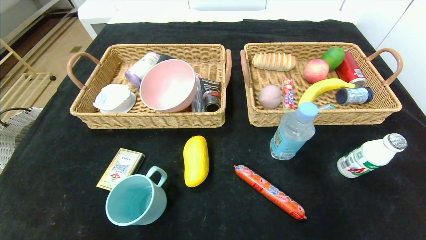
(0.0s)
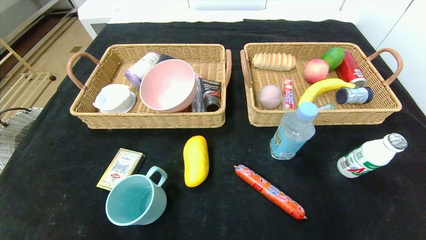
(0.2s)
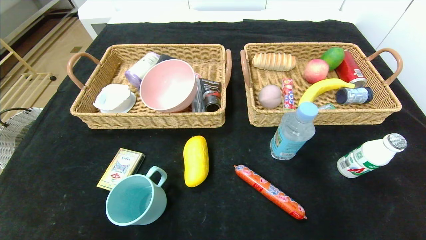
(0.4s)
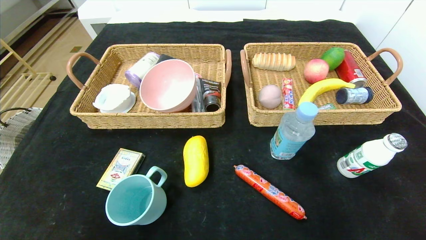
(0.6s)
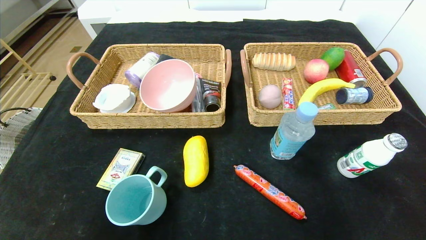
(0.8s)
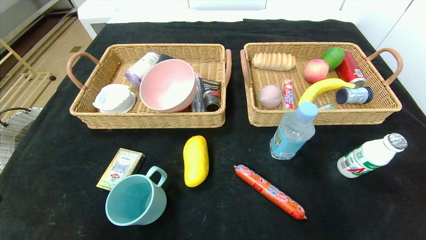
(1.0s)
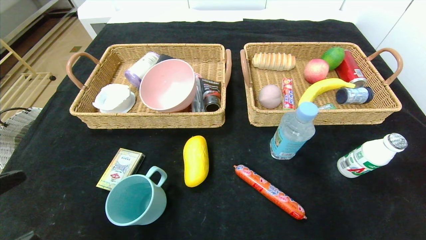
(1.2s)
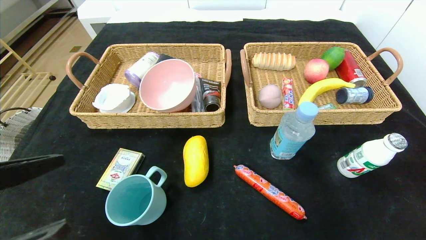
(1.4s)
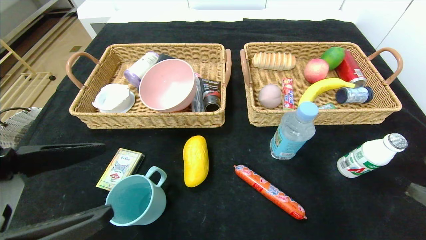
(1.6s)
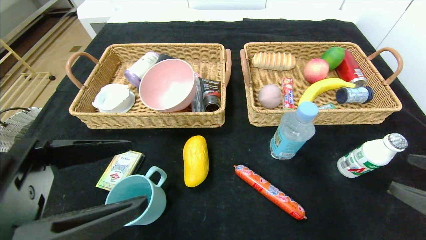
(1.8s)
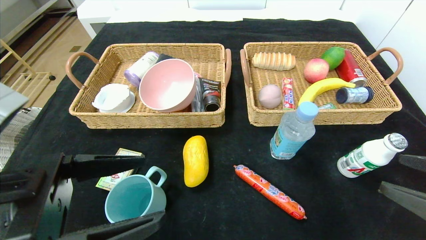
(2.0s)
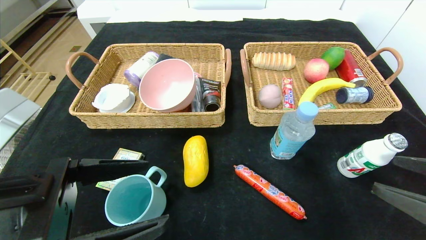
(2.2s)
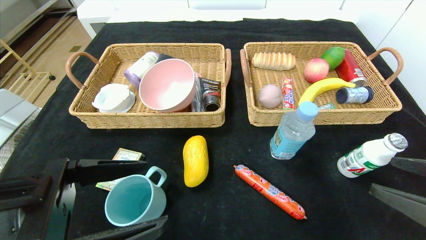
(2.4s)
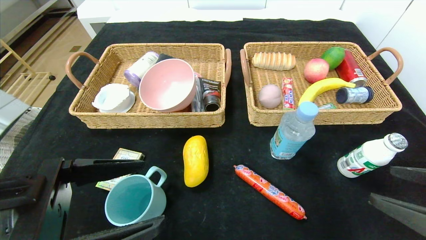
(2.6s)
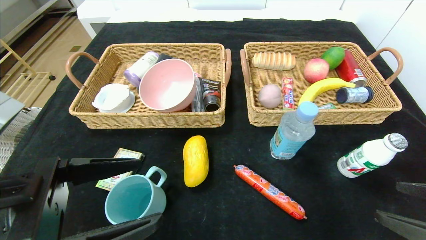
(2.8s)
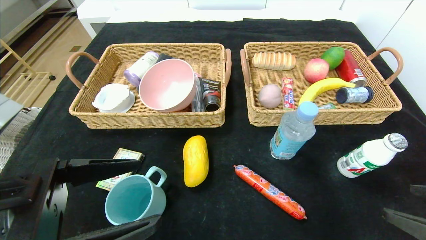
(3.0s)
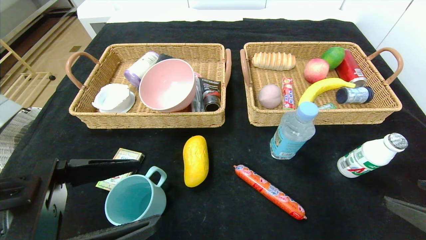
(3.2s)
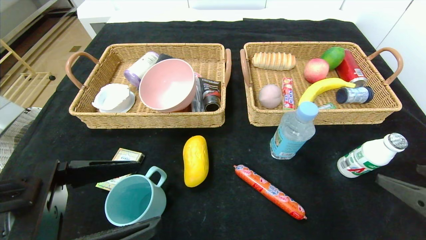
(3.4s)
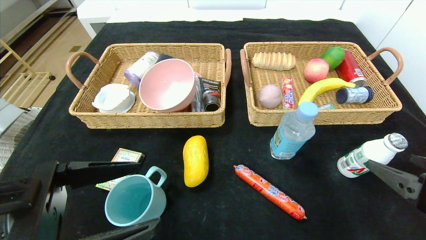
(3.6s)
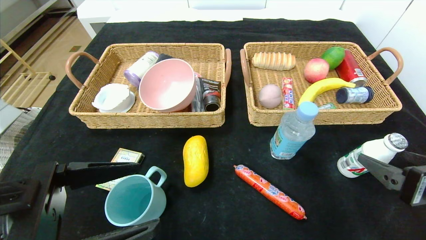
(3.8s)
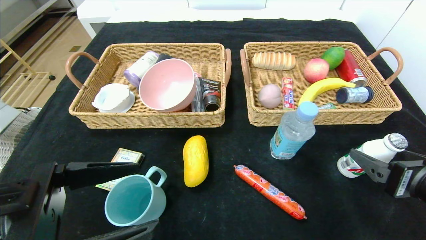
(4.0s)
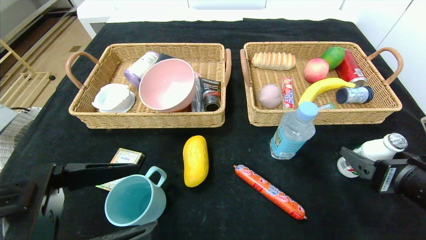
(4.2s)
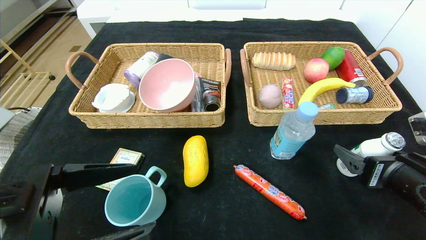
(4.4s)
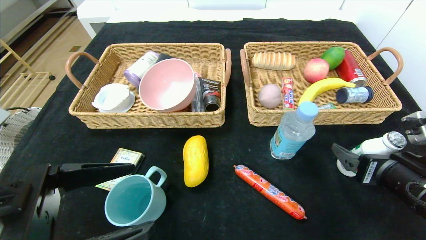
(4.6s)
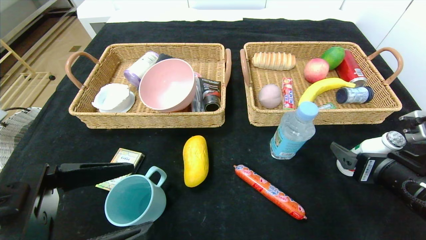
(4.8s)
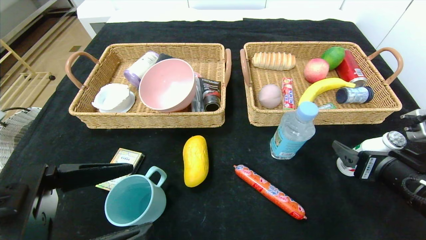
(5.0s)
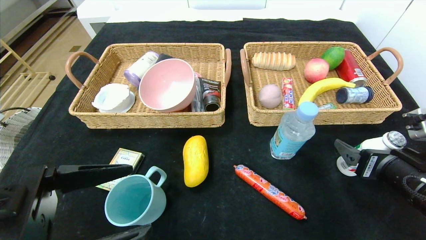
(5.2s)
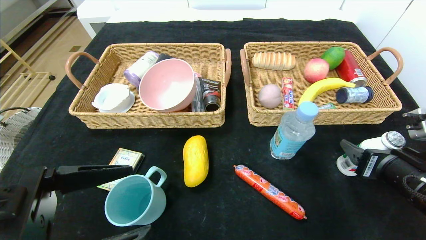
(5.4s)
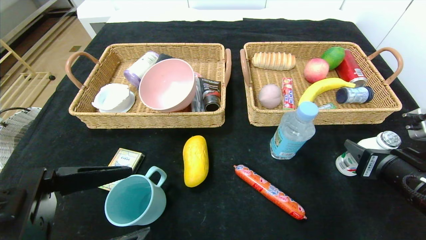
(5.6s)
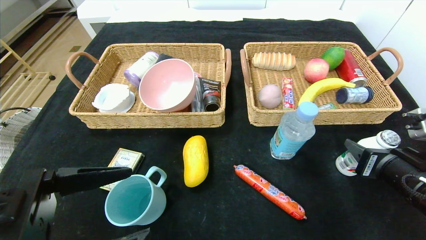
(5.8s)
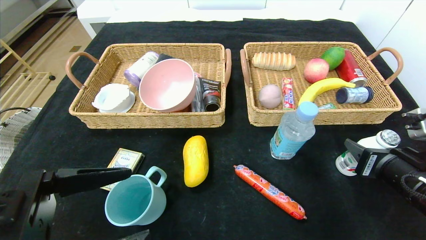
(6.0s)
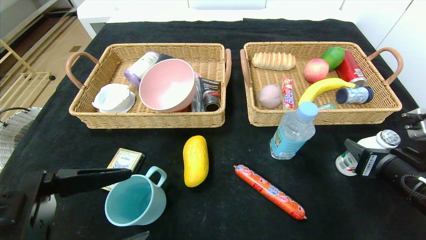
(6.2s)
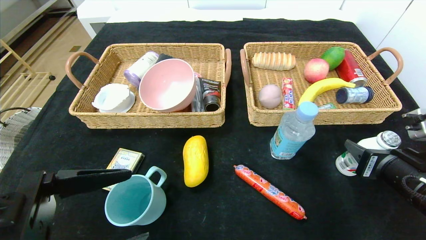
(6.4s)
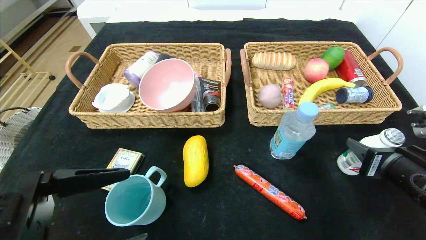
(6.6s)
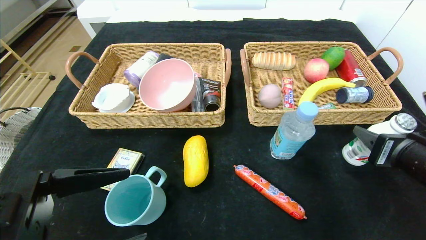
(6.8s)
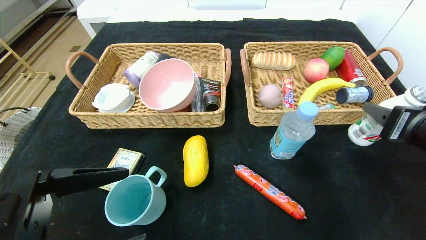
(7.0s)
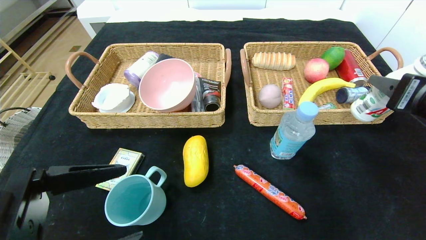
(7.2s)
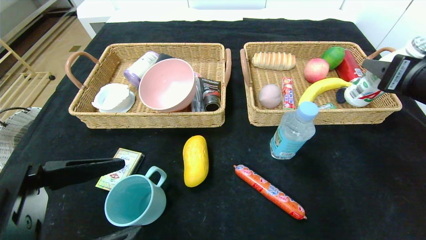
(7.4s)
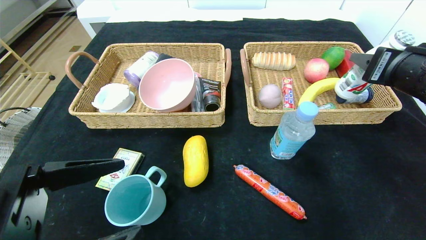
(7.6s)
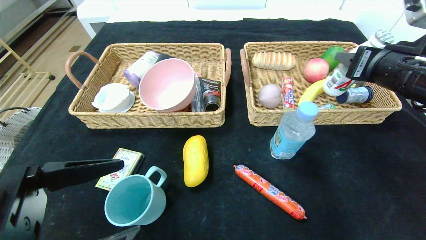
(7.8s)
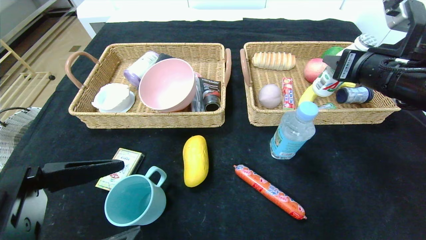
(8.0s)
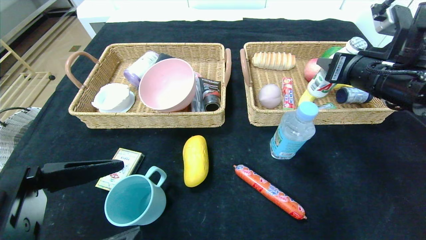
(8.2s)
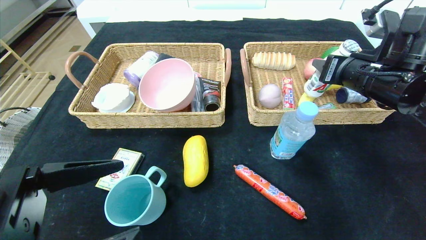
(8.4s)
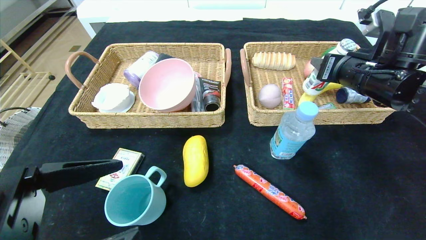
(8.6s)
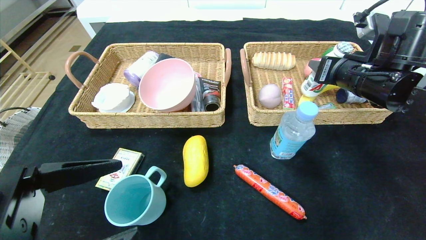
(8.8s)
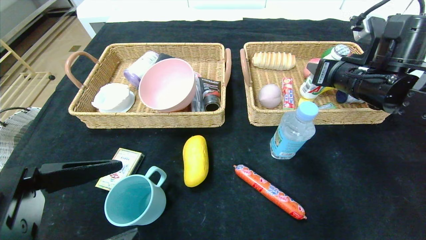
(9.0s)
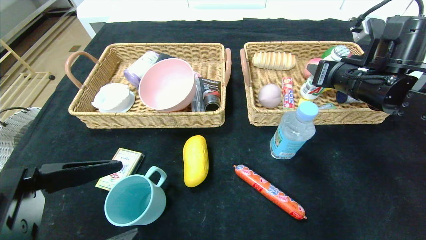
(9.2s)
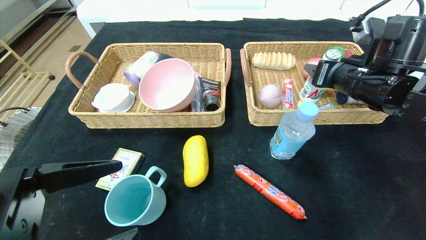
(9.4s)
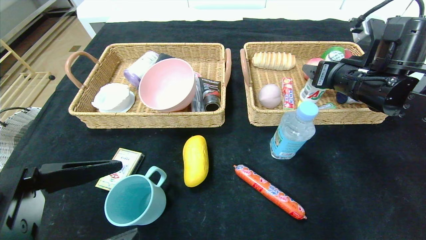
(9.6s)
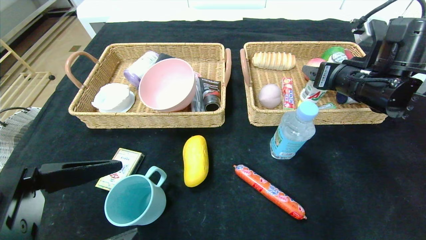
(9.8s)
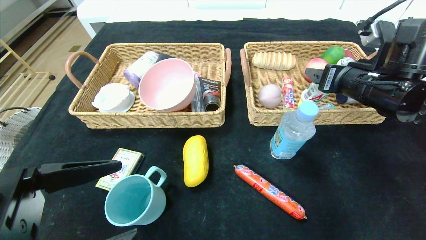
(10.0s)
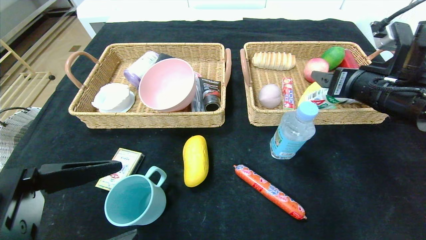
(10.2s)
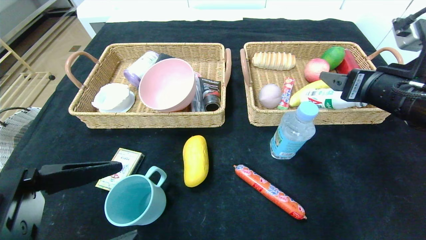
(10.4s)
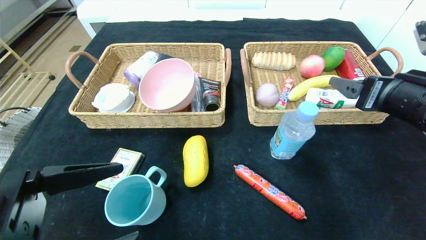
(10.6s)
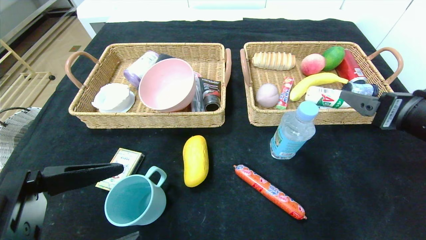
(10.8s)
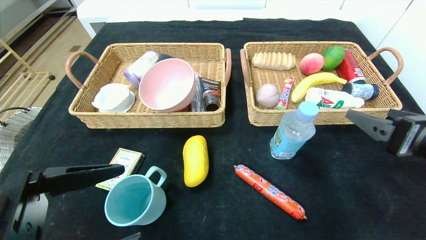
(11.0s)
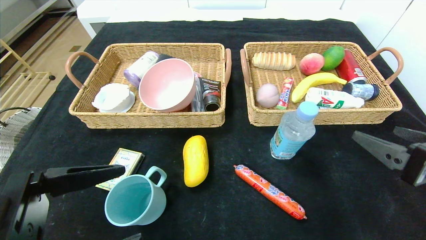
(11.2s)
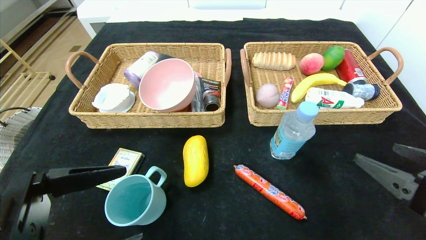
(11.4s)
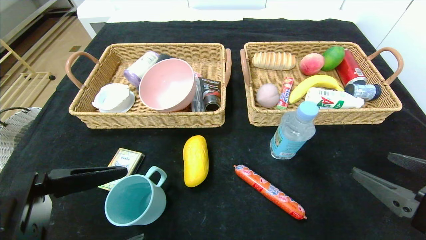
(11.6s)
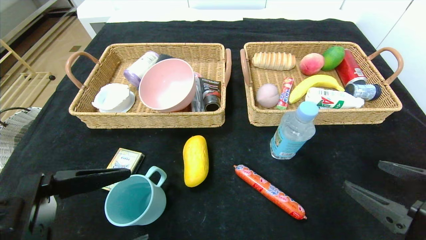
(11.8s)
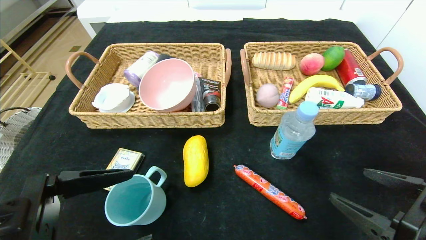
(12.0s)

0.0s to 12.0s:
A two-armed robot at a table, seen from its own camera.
Step, 0.0s to 10.0s: Grasp the ad milk and put it in the right basket.
0.0s to 1.6s: Both grippers travel together forward and upward, about 10 cm.
1.6s to 3.0s: There are only small adjustments of the grippers.
3.0s to 4.4s: The right gripper shifts about 10 cm forward.
4.4s to 6.0s: The right gripper closes up.
6.0s to 7.6s: The right gripper is displaced upward by about 15 cm.
7.6s to 9.0s: The right gripper is displaced forward by some 10 cm.
9.0s to 10.4s: The right gripper shifts approximately 5 cm backward, and opens its fingers.
10.4s to 12.0s: The right gripper heads backward and downward, covering about 15 cm.

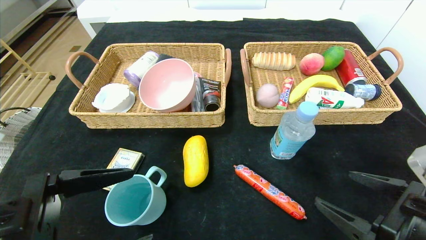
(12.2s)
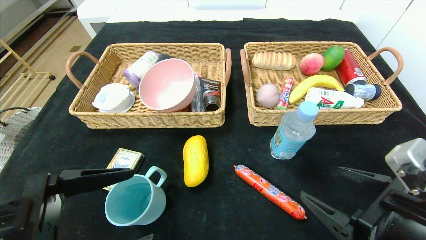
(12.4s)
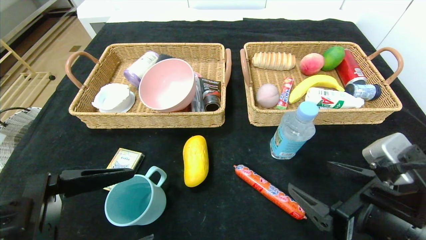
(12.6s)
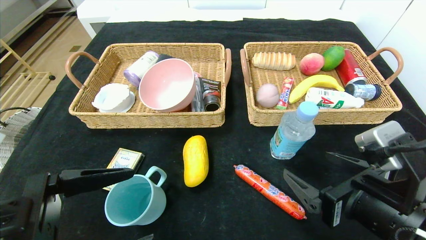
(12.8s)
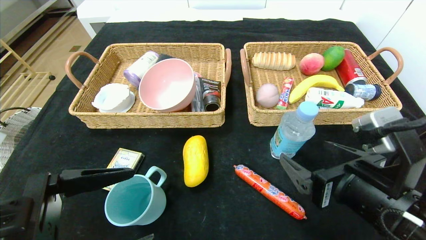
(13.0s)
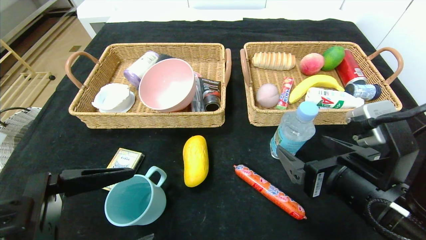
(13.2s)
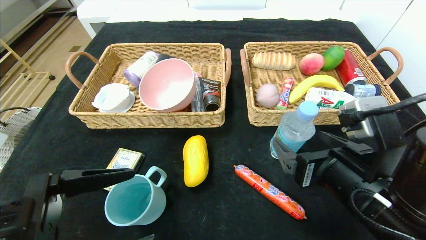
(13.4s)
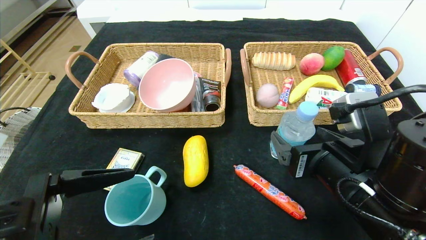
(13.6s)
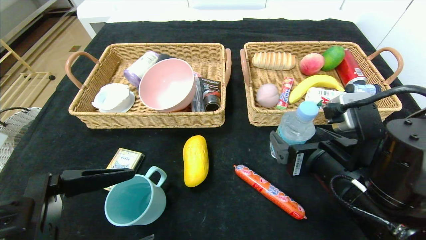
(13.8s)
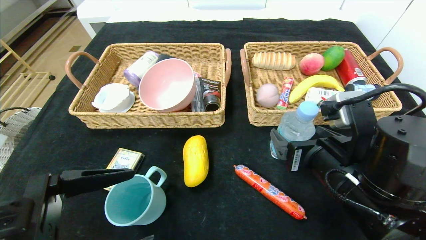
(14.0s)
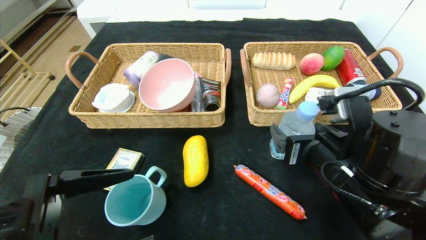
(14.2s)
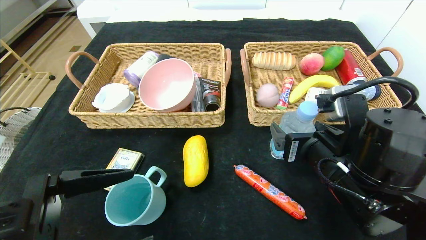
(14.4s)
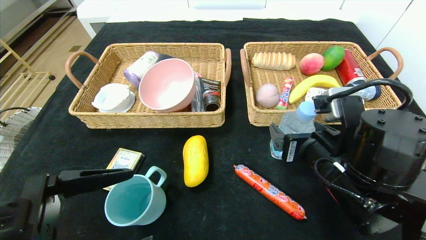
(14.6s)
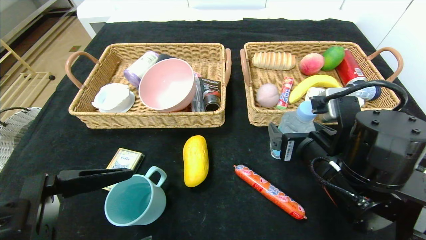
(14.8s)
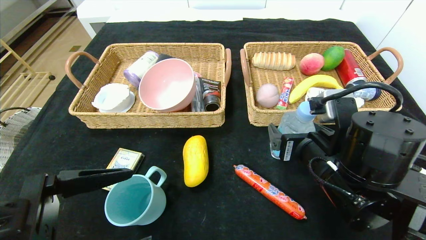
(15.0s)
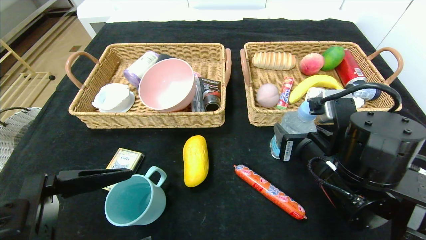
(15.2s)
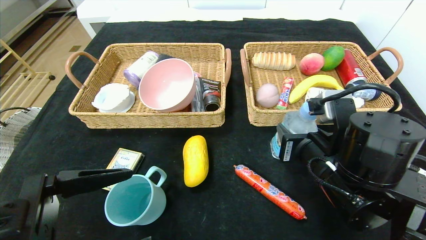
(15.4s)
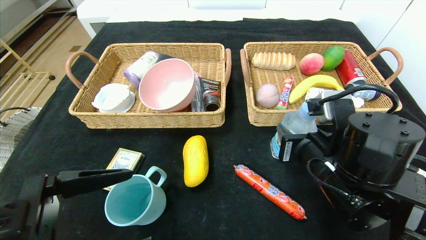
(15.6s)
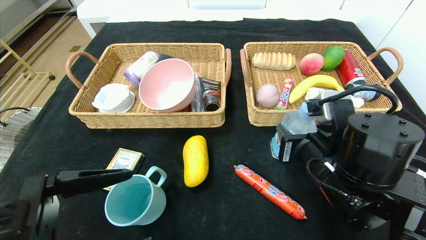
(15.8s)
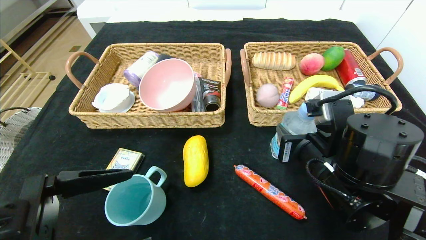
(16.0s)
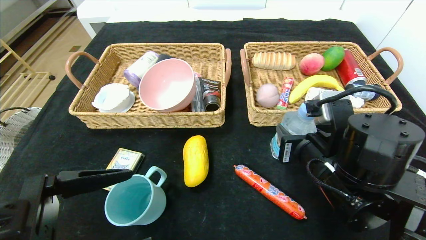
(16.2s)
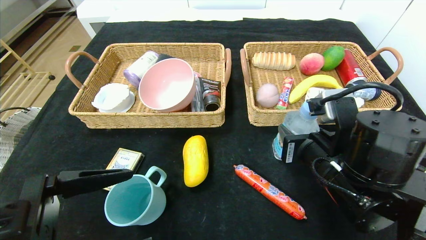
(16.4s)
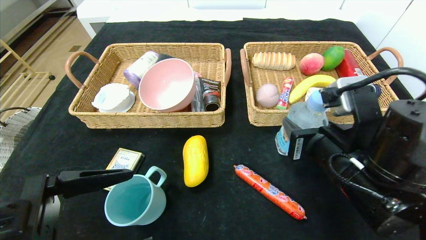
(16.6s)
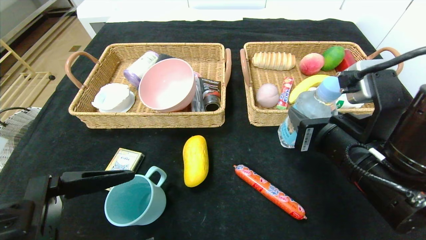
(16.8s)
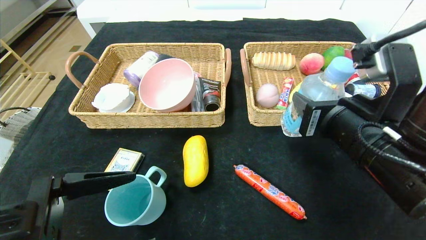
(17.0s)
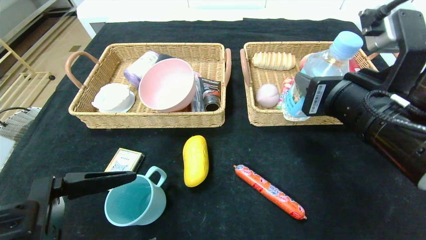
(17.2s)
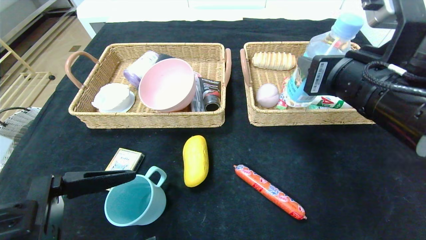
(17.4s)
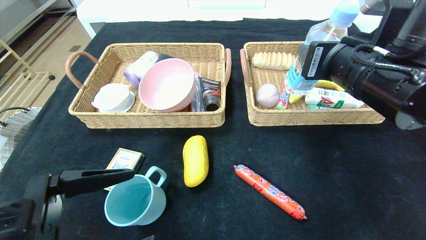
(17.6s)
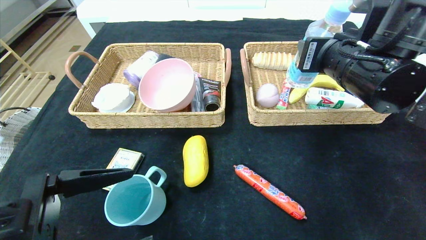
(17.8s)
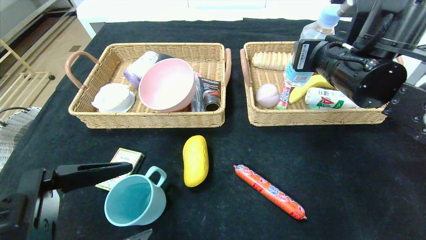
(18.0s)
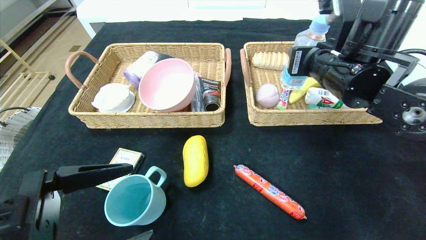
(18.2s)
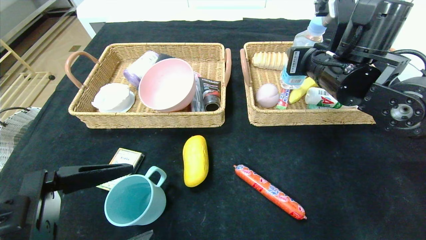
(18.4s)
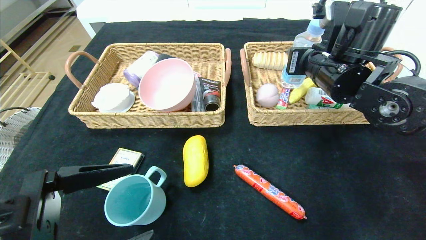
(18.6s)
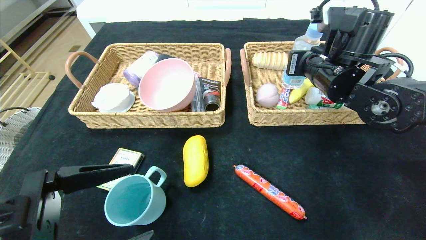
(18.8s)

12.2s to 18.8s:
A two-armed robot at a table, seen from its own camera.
12.2s to 13.8s: The right gripper goes roughly 10 cm to the left and forward.
13.8s to 15.4s: The right gripper closes.
15.4s to 17.2s: The right gripper heads upward, covering roughly 10 cm.
17.2s to 18.8s: The right gripper is displaced forward by about 15 cm.
